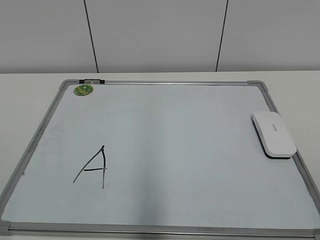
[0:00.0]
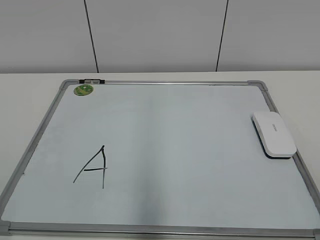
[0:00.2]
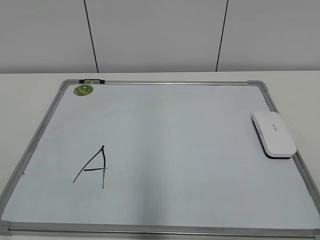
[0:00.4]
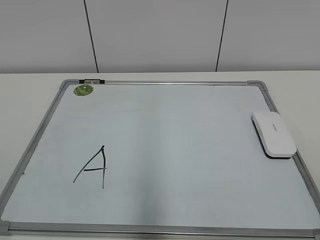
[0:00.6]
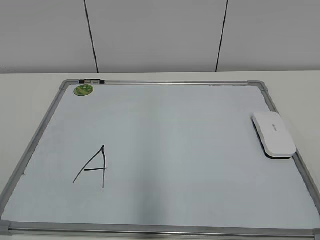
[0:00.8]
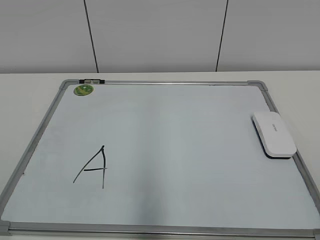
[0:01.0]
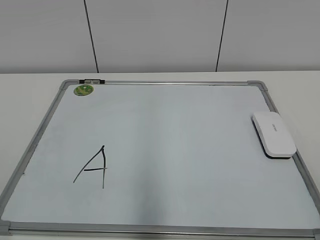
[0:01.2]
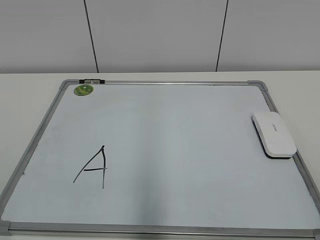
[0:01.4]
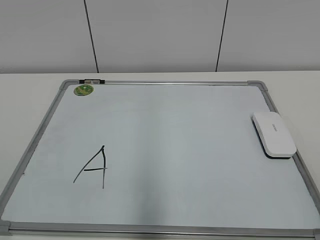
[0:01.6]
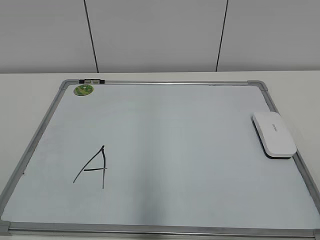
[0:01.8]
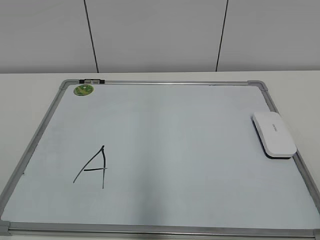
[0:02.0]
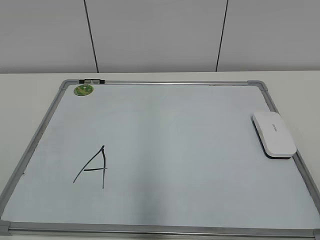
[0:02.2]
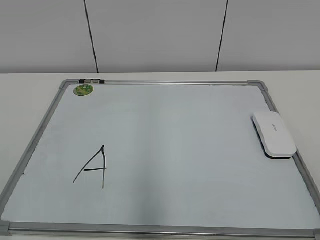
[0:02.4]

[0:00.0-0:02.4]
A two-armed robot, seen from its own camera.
Task of the whole recording: pick up the eraser on the blackboard and erase the letter "a".
0:00.0 to 0:02.4: Both grippers stay about where they are.

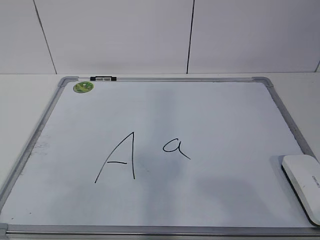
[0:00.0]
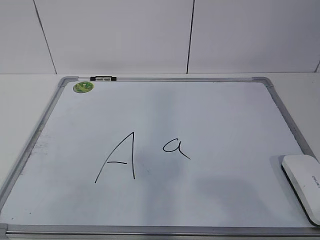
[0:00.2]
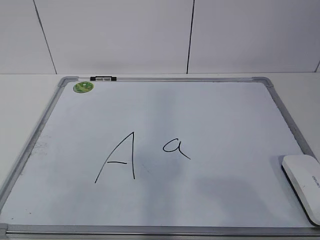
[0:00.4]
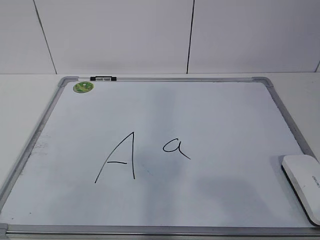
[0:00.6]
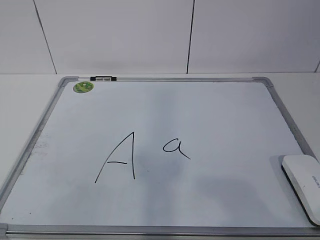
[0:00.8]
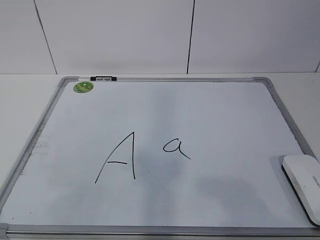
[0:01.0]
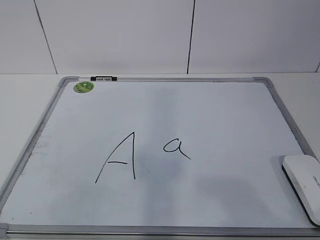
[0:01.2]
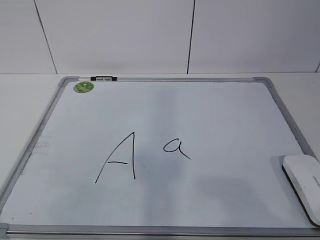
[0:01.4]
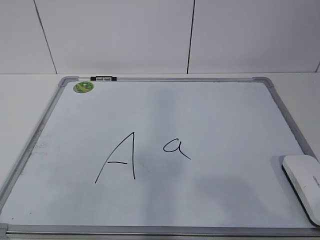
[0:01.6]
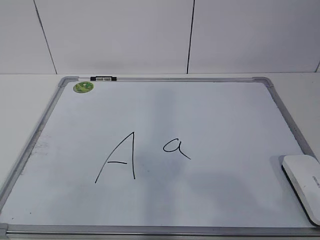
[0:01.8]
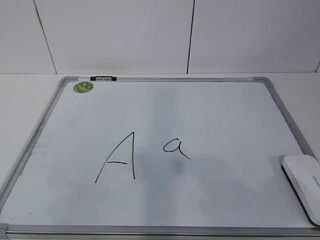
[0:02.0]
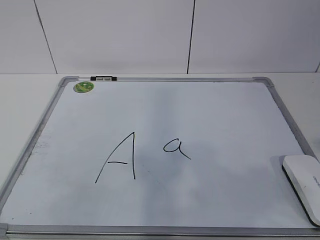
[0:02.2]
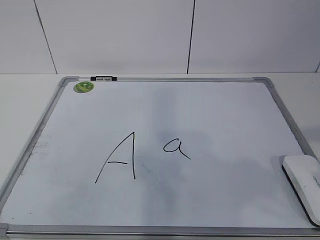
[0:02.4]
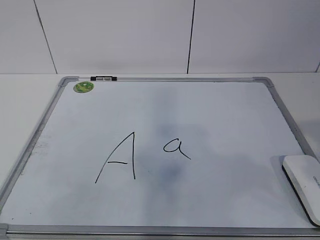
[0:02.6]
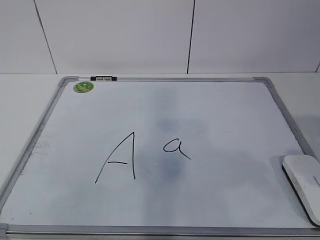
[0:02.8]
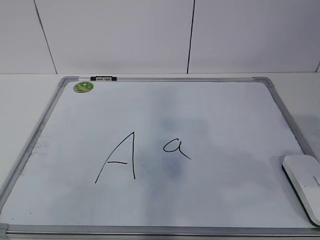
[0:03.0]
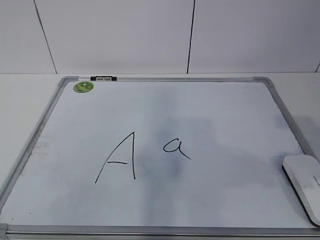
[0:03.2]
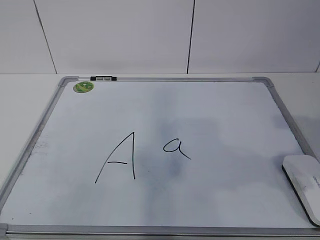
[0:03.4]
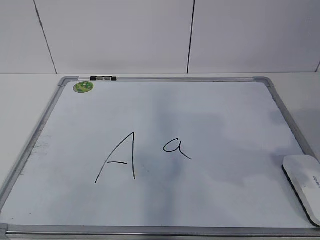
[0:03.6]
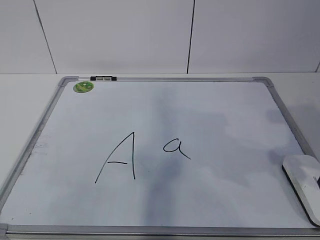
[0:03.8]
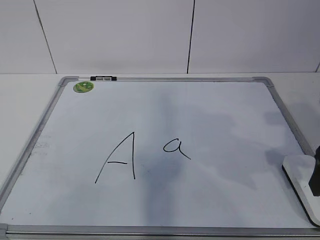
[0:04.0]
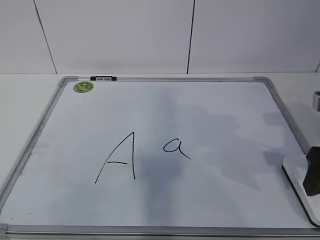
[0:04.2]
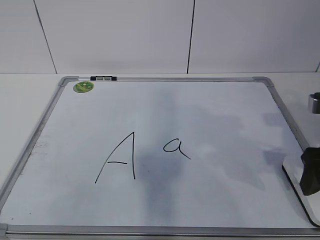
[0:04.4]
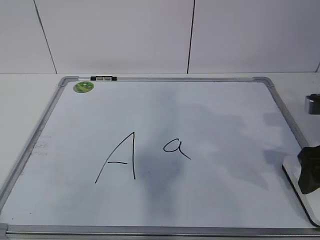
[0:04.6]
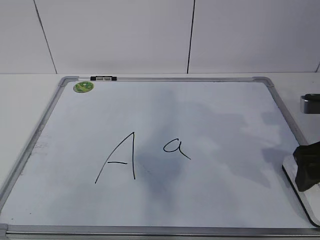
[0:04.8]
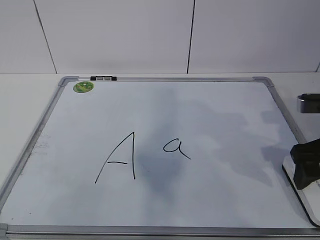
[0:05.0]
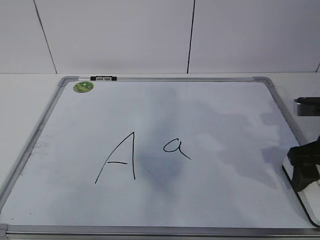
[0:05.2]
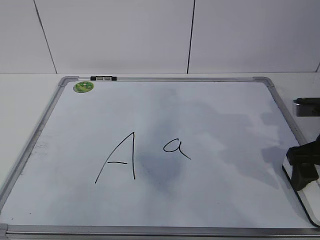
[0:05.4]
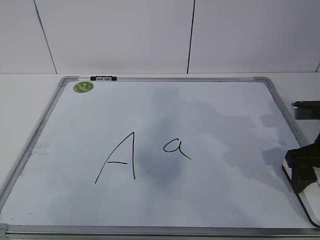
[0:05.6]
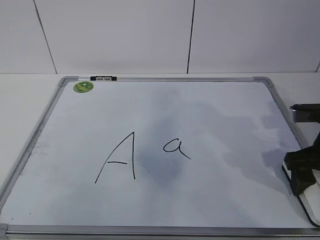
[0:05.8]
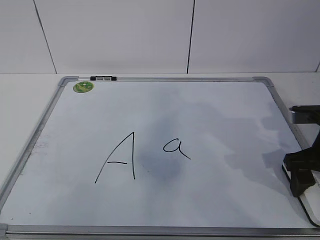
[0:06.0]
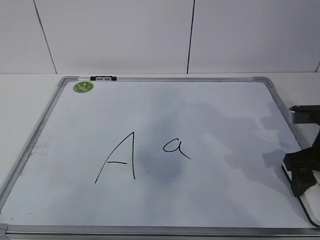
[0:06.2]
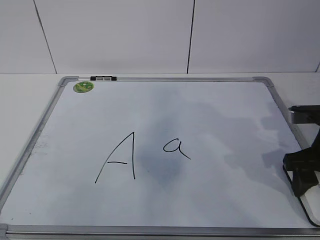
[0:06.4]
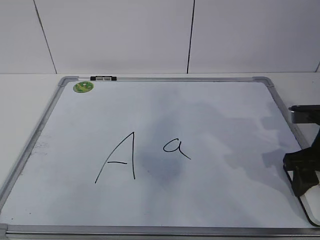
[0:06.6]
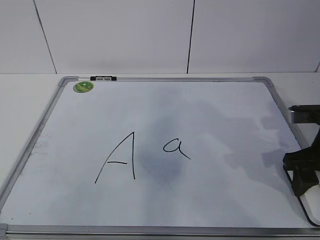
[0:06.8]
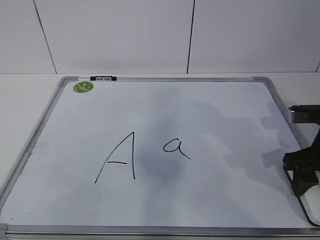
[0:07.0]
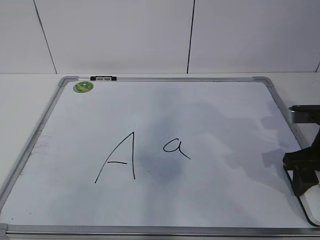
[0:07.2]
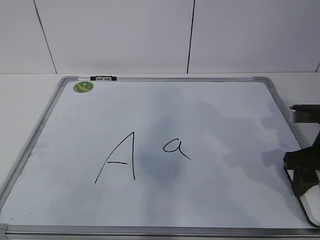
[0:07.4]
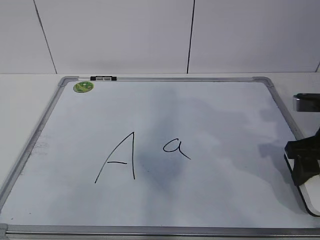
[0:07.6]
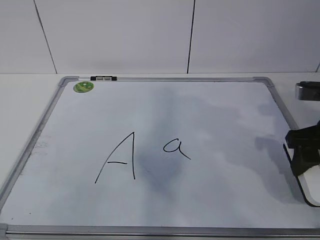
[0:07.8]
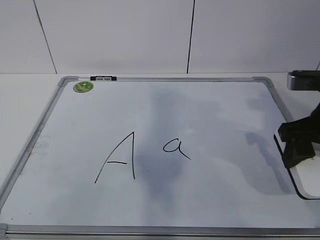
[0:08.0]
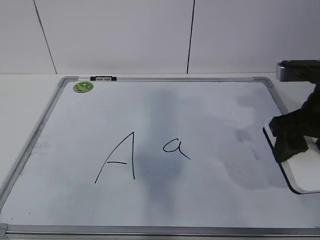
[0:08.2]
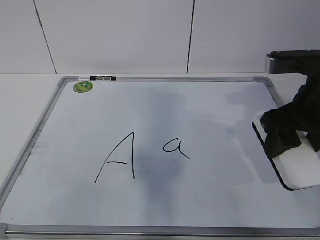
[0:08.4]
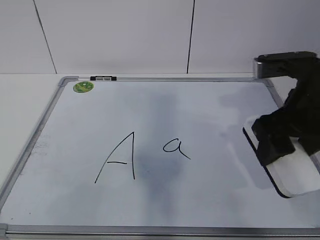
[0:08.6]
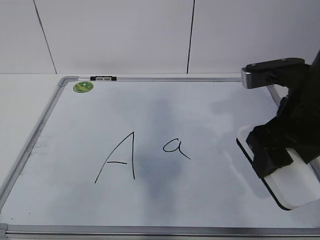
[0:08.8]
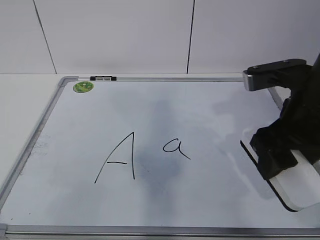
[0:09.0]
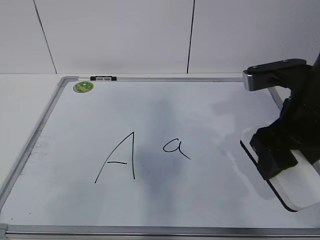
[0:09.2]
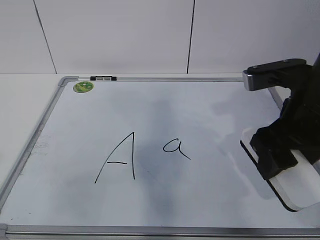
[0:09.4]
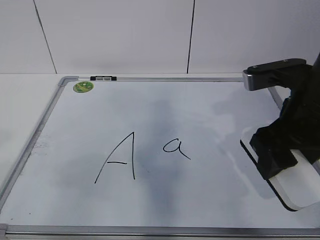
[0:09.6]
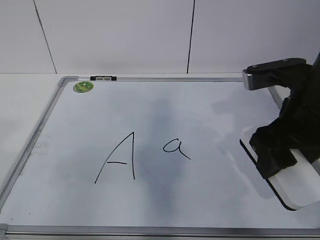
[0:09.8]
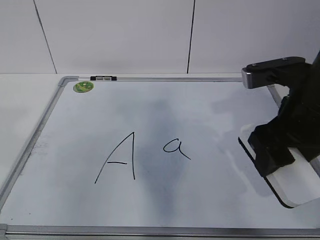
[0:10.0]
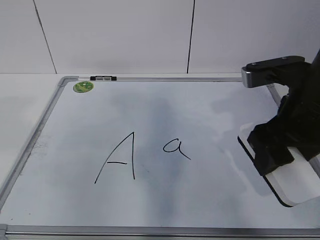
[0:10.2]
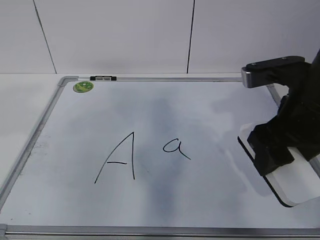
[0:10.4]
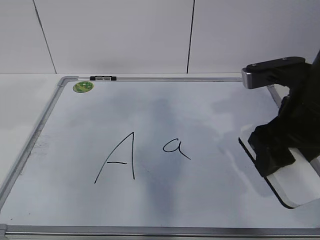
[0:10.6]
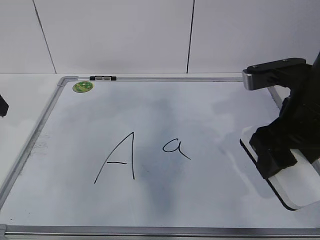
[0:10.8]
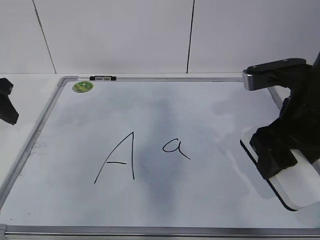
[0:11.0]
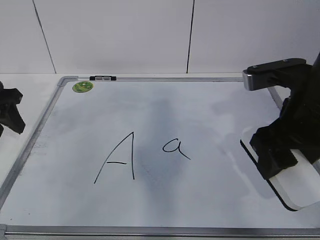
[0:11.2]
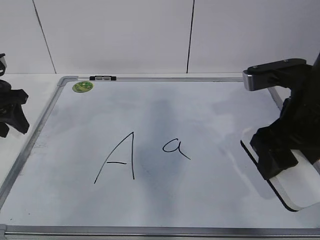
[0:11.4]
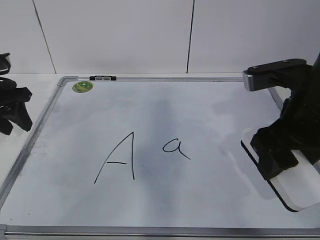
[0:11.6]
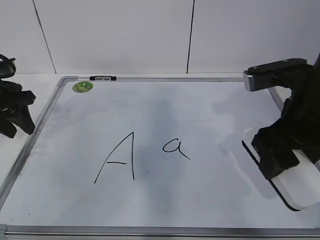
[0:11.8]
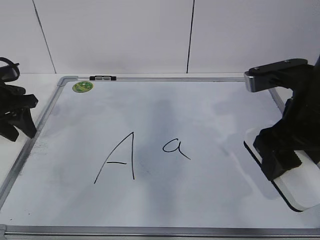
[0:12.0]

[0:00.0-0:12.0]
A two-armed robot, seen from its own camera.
Task of the whole recording: pick up the eraser on the blackboard and erase the letter "a".
Step, 0:06.0 to 0:11.6: Hold the drawing board steady with your left hand.
0:03.0 to 0:04.4: The right gripper is displaced forward and downward by some 15 cm.
0:04.4 to 0:06.0: The right gripper changes place by about 5 cm.
0:06.0 to 0:07.6: The right gripper closes.
0:07.6 to 0:09.0: The right gripper goes about 10 cm to the left and upward.
0:10.4 to 0:12.0: The left gripper travels forward and downward by some 20 cm.

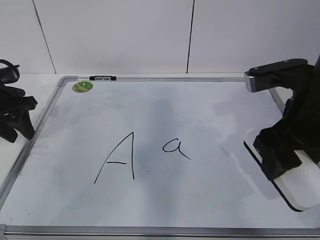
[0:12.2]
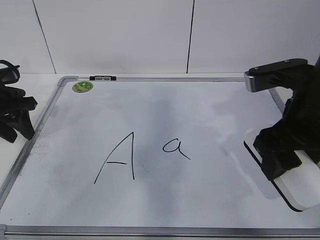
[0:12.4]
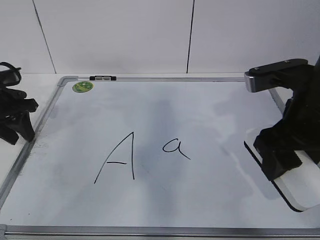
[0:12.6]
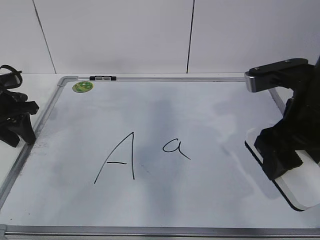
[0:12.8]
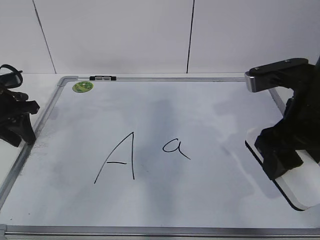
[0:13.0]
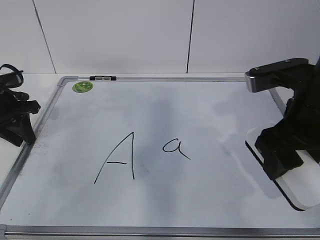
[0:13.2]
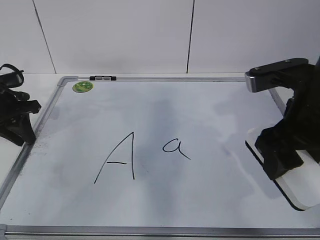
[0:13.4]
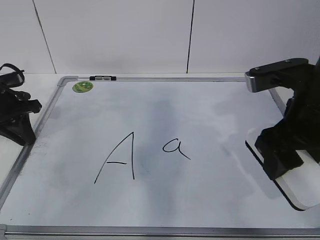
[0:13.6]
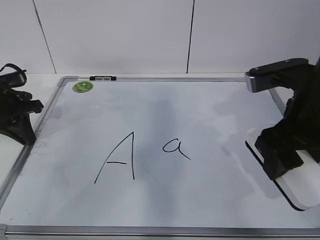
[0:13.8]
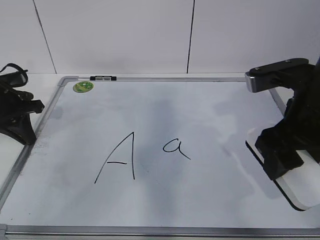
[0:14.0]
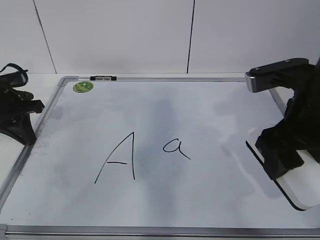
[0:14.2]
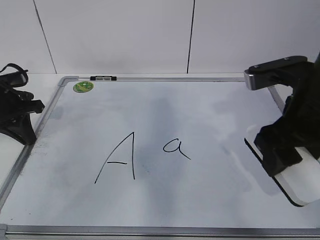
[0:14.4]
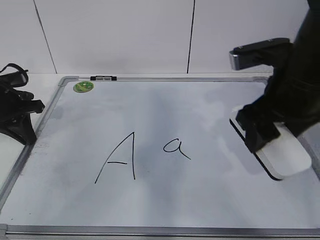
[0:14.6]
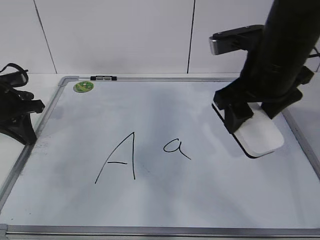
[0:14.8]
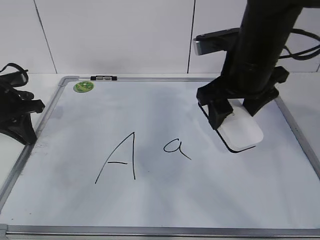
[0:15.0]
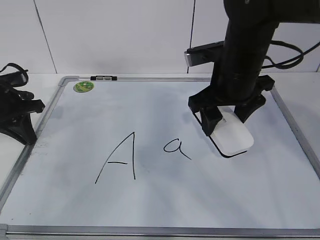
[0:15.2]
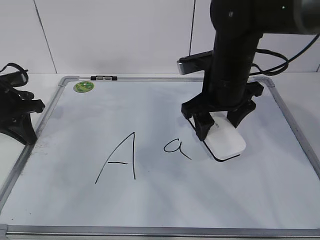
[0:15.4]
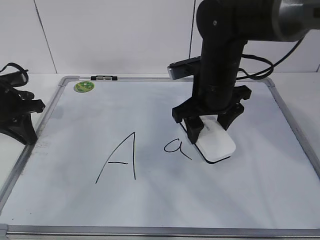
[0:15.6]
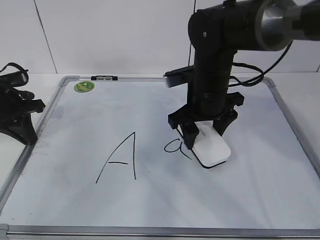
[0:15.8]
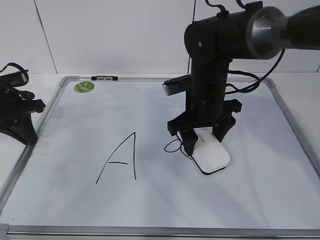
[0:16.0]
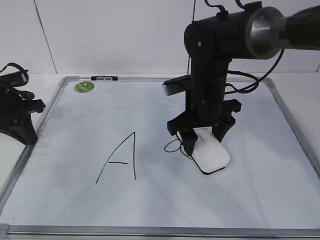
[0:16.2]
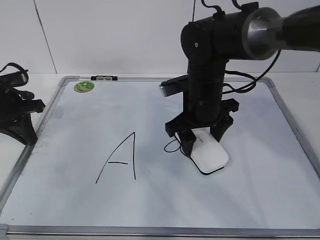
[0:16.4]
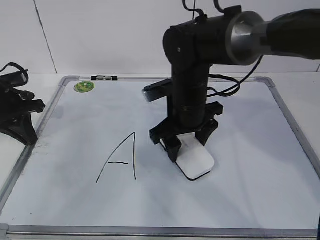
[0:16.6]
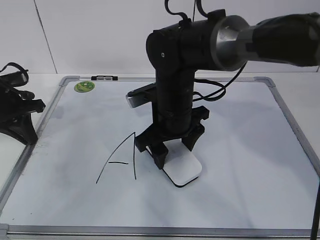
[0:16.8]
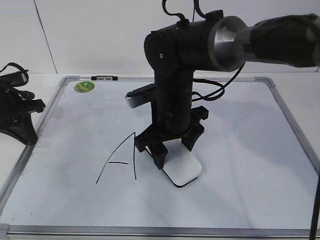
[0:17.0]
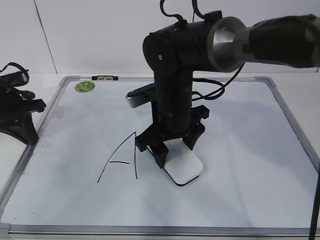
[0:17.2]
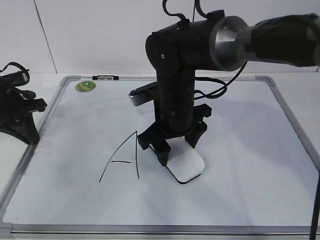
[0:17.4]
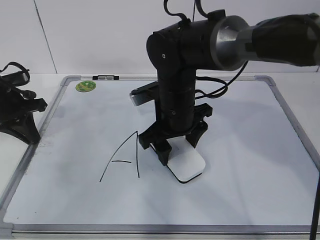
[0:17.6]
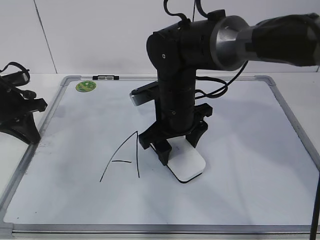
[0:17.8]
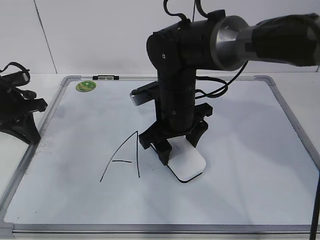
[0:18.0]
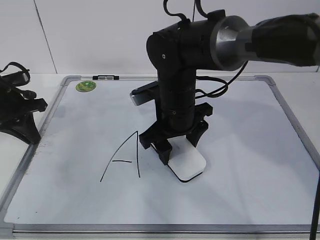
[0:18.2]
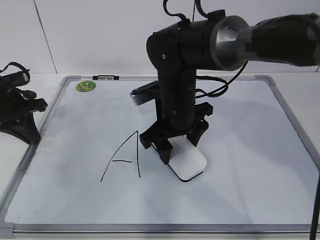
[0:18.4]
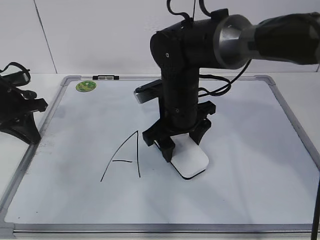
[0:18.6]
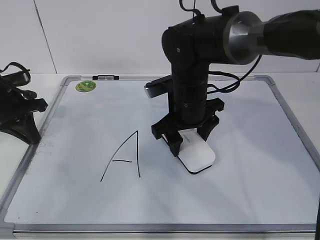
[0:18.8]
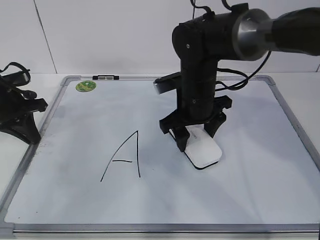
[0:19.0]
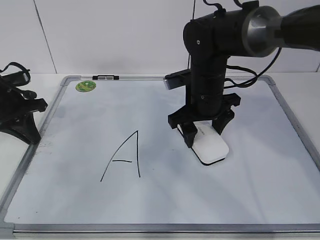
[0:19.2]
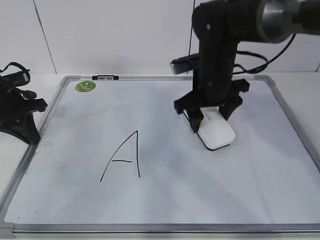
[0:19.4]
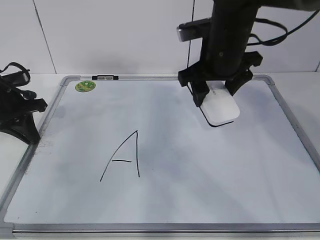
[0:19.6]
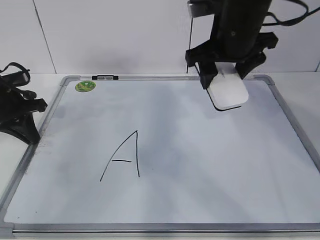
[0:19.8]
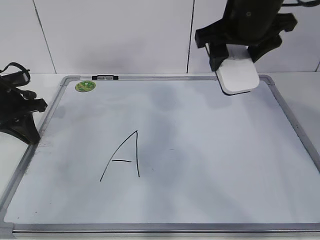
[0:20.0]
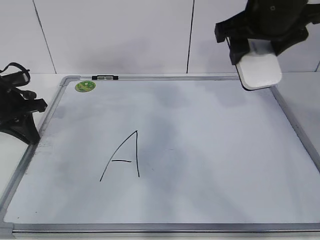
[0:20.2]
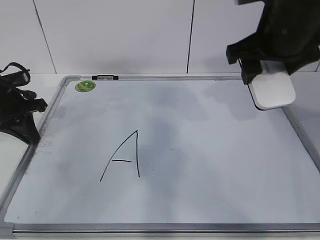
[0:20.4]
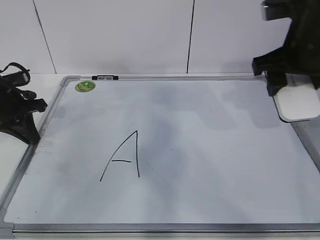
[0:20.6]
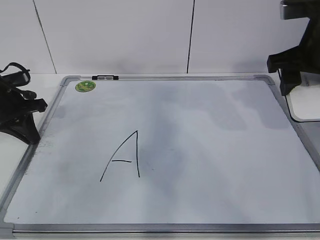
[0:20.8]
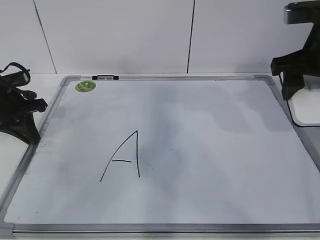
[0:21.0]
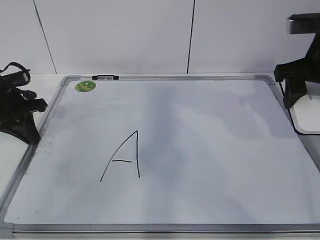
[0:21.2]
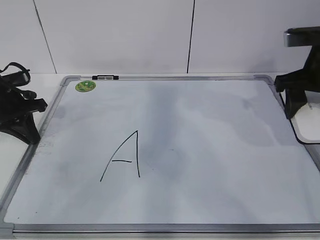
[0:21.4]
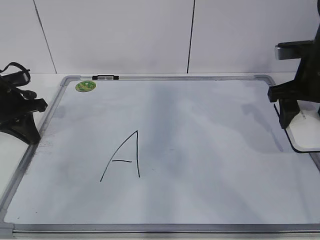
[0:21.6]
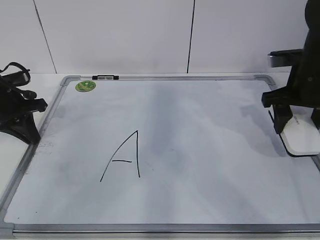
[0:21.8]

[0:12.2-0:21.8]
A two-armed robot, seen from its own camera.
Task of the whole recording: pick up the eraser on the blackboard and erase the letter "a".
Step, 0:12.2 to 0:15.8: Erase the letter a with your right hand.
Step, 0:16.2 to 0:19.8: Put down the eraser with your right hand.
0:12.2 to 0:13.8: The left gripper closes up.
0:13.8 to 0:15.4: The right gripper moves forward and to the left, roughly 15 cm.
0:15.4 to 0:17.0: The right gripper goes about 10 cm to the left.
0:17.0 to 0:18.6: The grippers stay close to where they were, moving slightly.
0:18.6 to 0:20.2: The right gripper shifts some 20 cm upward and to the right.
0:20.2 to 0:21.8: The right gripper goes approximately 15 cm downward and to the right.
